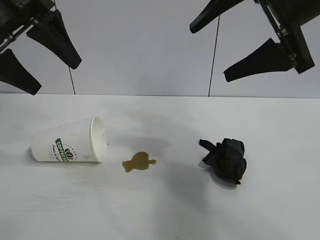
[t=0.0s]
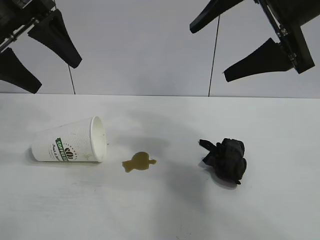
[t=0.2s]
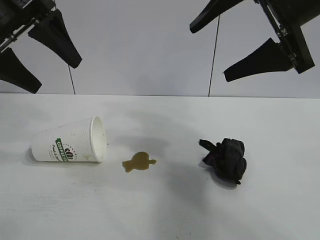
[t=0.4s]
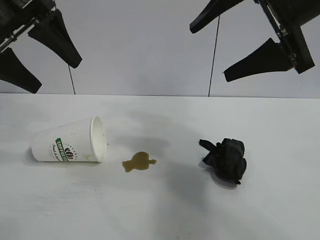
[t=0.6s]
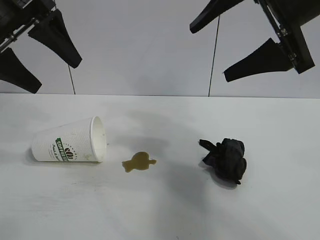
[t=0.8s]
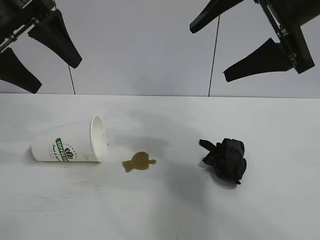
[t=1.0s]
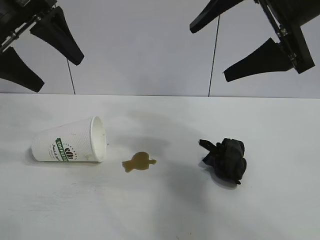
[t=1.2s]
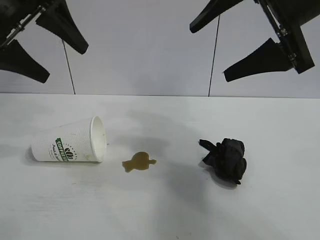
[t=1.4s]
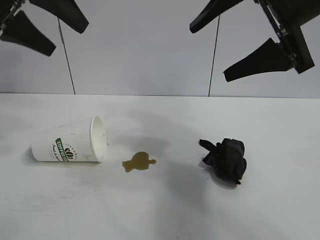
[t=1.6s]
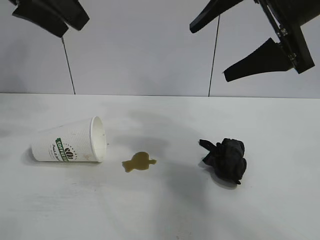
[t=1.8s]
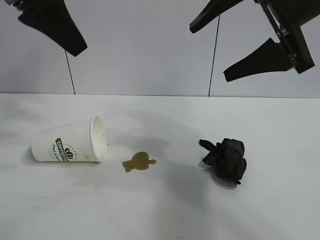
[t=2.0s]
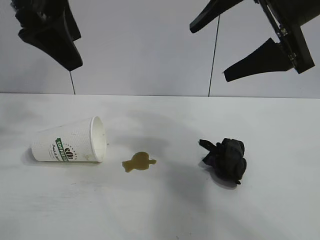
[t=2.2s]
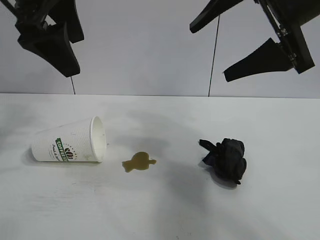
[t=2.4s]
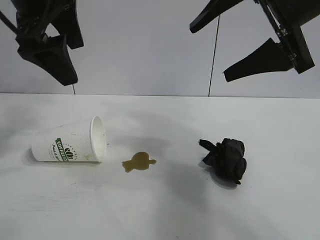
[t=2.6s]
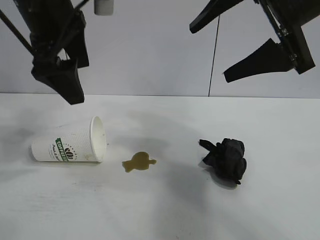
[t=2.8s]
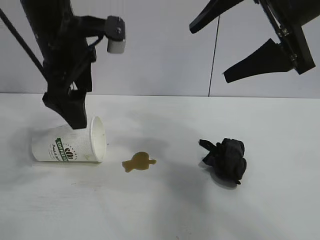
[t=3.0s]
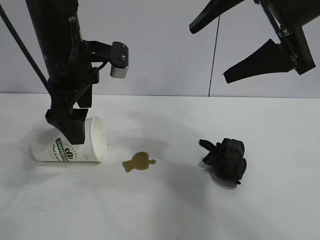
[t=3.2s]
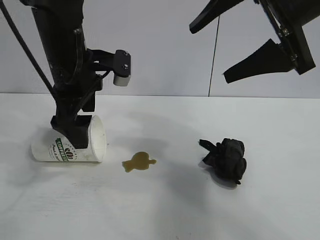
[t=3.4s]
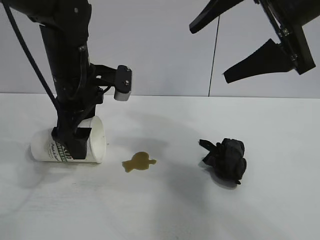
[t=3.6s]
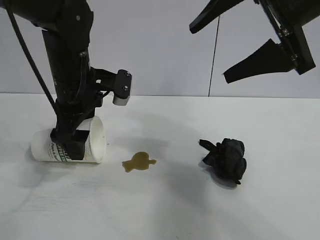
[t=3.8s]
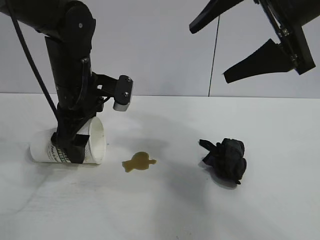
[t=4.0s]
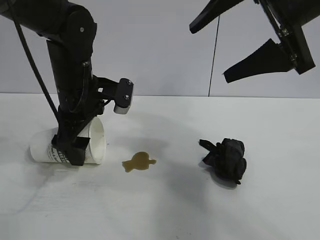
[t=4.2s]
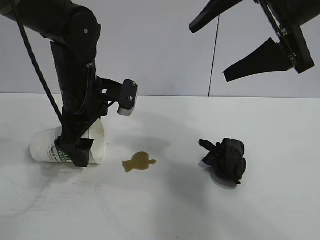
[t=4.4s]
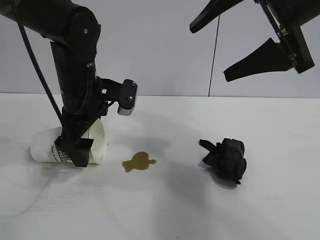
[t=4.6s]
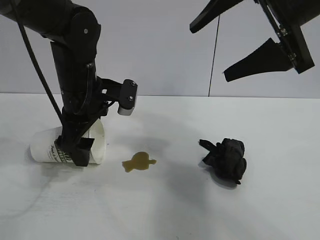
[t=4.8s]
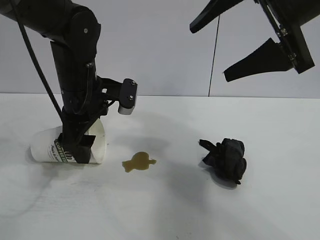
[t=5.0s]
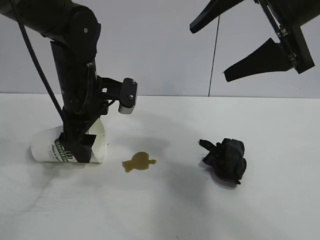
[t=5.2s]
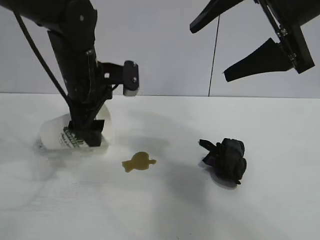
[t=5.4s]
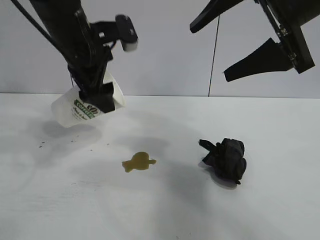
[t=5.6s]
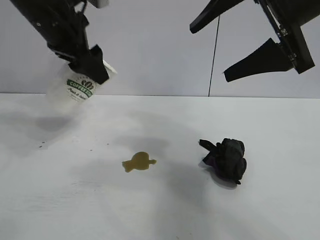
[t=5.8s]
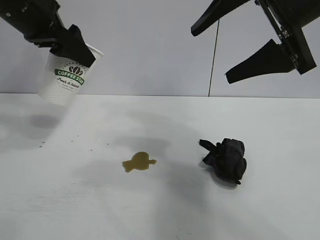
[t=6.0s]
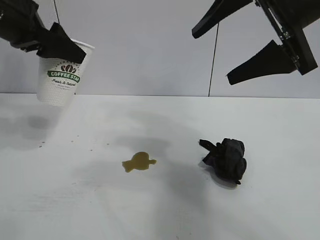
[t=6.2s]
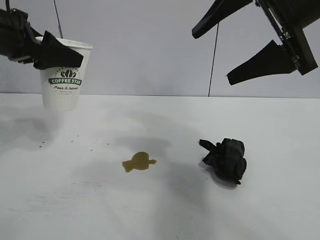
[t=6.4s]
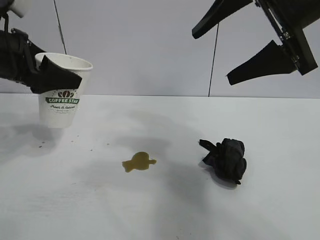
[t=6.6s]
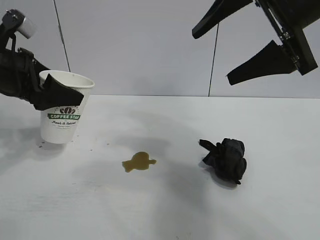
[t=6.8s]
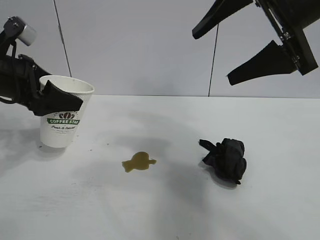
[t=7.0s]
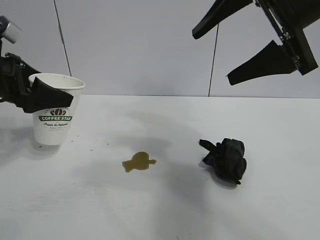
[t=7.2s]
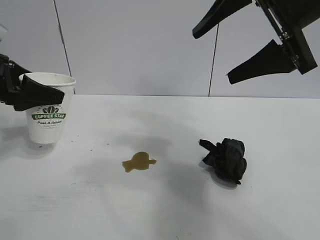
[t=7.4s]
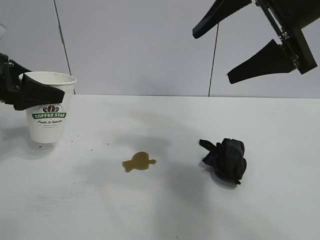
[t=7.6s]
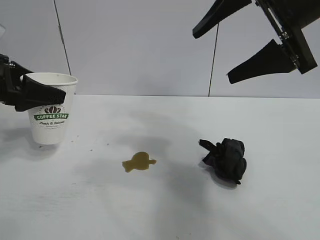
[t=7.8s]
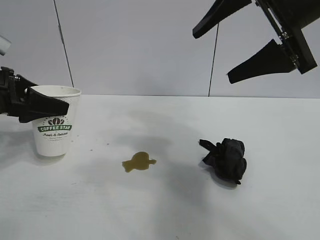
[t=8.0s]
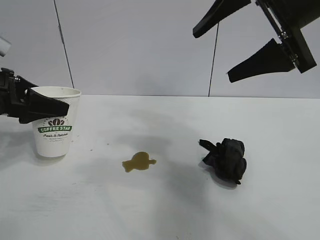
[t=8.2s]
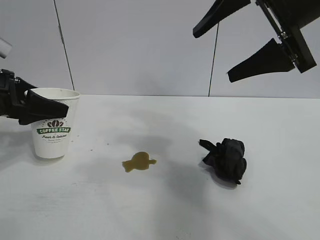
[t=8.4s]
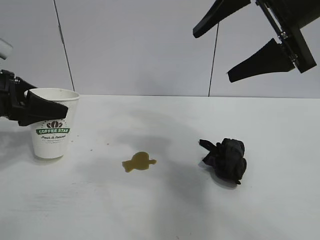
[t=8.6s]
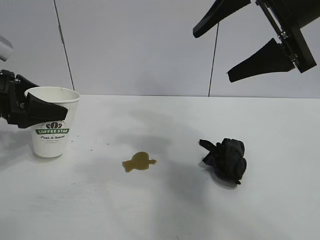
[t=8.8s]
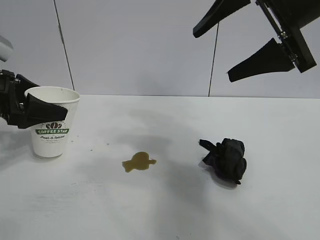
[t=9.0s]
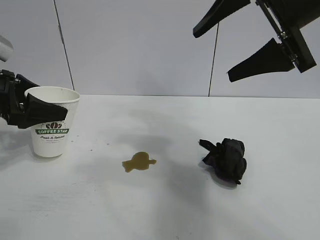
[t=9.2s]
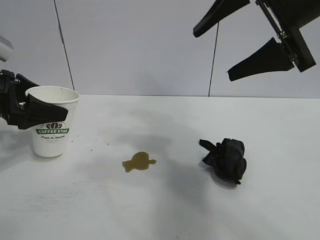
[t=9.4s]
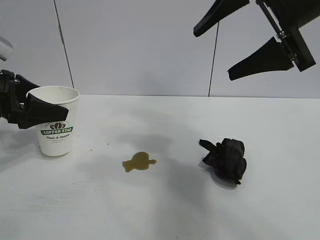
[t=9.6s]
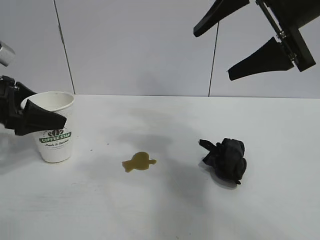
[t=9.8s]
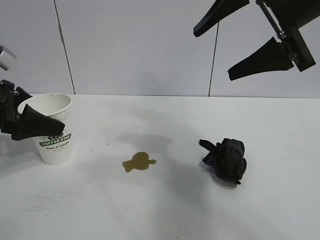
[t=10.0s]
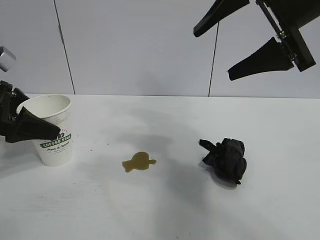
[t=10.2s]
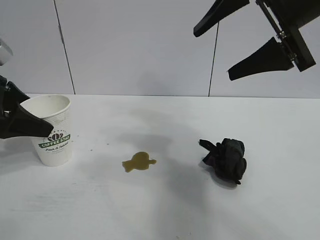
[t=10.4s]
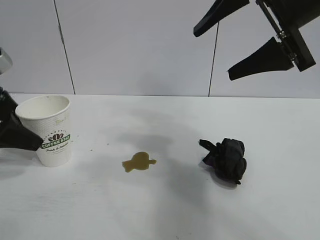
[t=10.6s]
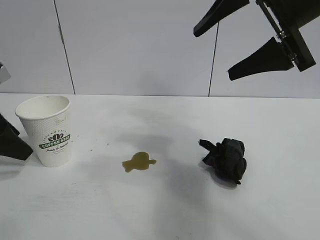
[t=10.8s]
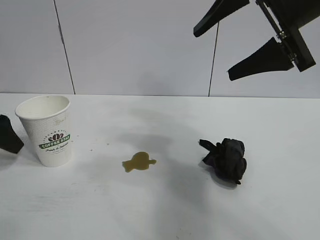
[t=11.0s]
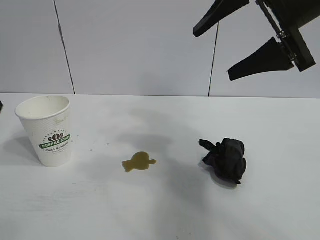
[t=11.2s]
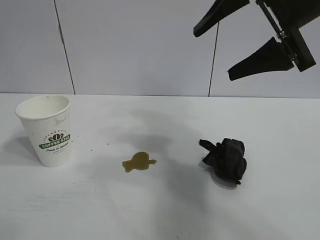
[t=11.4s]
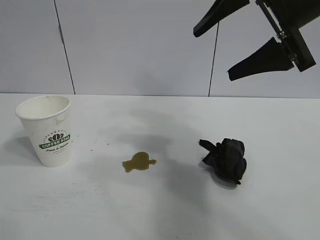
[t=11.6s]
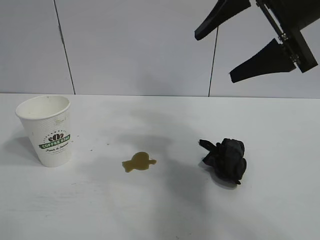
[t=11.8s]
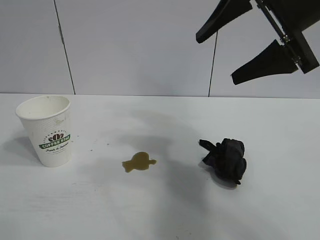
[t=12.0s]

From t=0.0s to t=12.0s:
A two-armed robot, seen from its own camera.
Task of the whole recording: the left gripper pick up the fallen cup and place it upright, the right gripper grasp the black rag and wipe the stain on the table, the right gripper put the black rag back in its original position.
Step, from t=1.2s to t=5.0s: Grasp the paper cup with left gripper.
Step, from t=5.2s to t=10.0s: Stand the paper cup upright with left gripper.

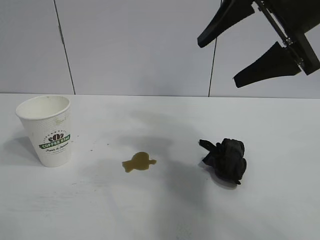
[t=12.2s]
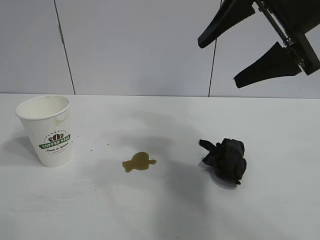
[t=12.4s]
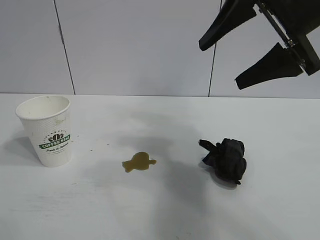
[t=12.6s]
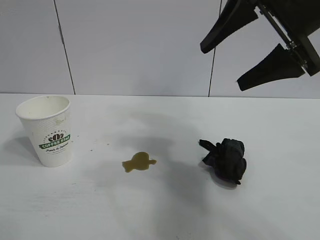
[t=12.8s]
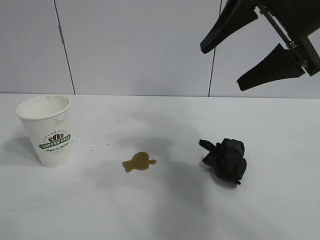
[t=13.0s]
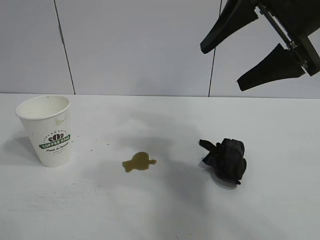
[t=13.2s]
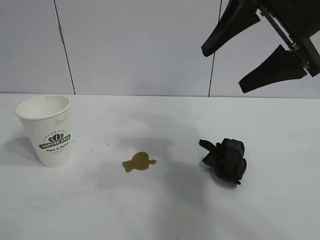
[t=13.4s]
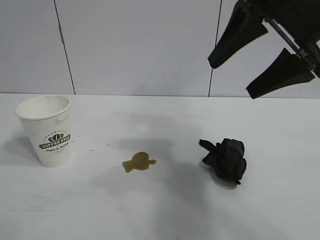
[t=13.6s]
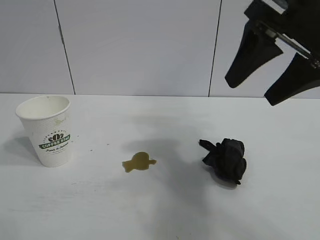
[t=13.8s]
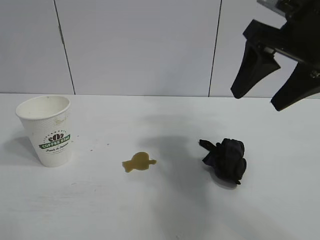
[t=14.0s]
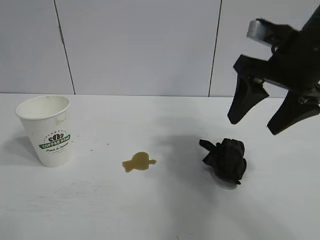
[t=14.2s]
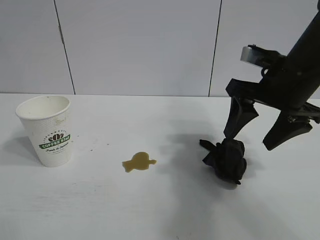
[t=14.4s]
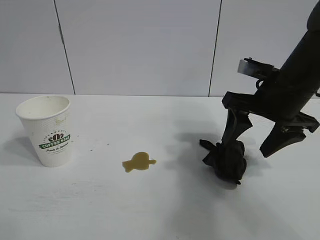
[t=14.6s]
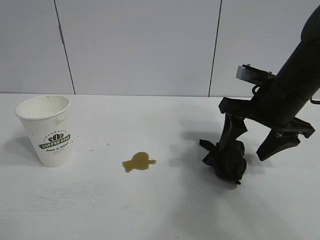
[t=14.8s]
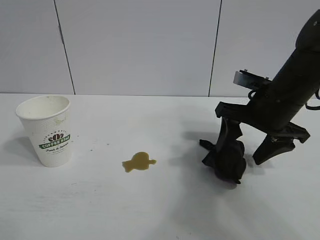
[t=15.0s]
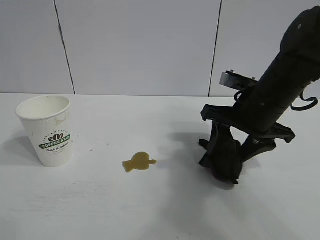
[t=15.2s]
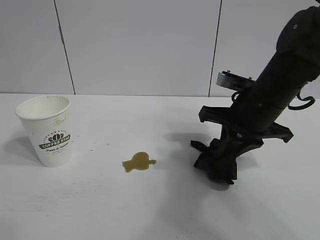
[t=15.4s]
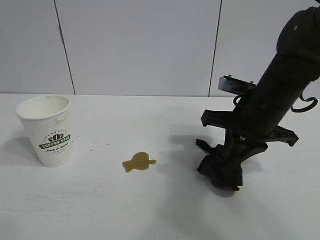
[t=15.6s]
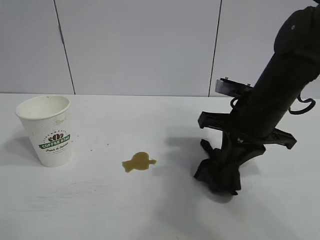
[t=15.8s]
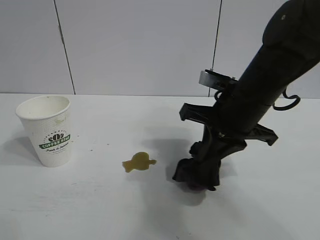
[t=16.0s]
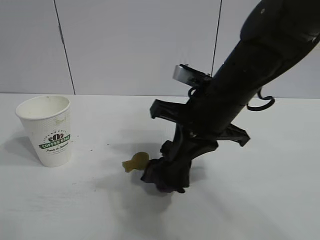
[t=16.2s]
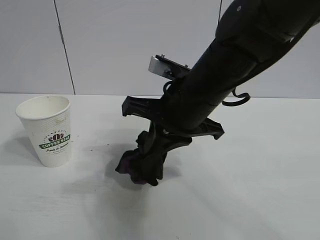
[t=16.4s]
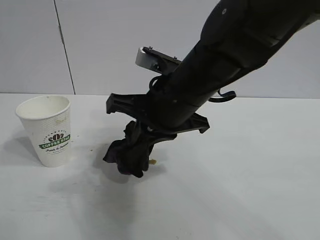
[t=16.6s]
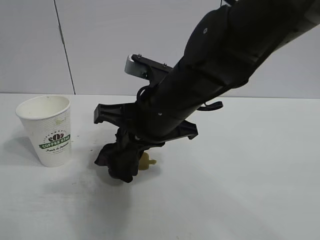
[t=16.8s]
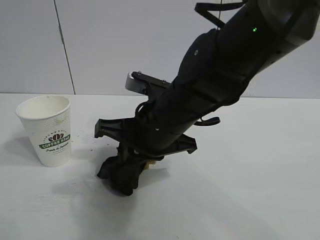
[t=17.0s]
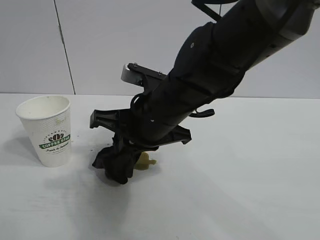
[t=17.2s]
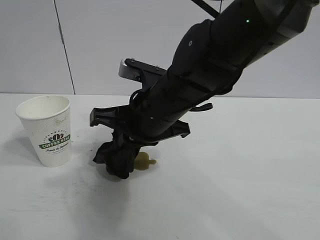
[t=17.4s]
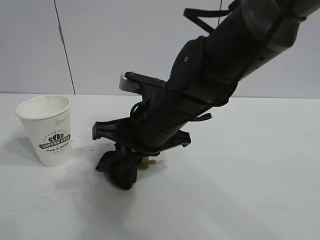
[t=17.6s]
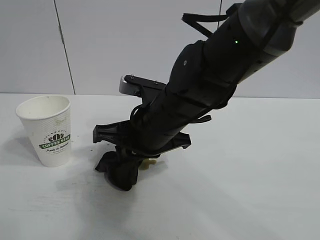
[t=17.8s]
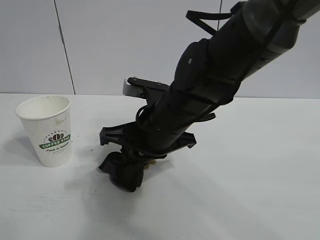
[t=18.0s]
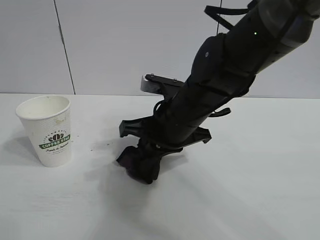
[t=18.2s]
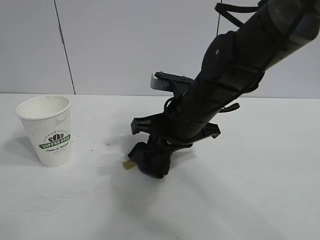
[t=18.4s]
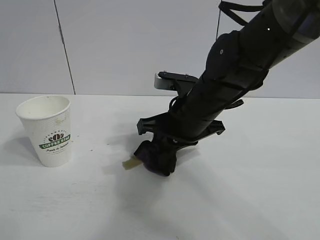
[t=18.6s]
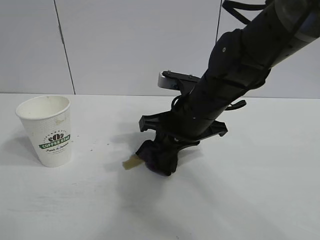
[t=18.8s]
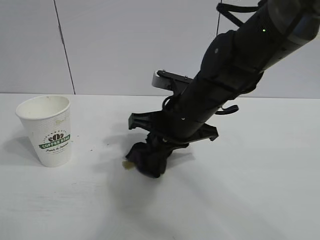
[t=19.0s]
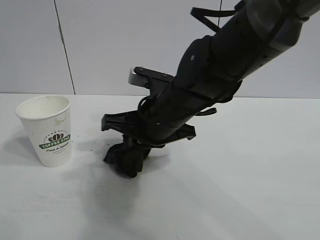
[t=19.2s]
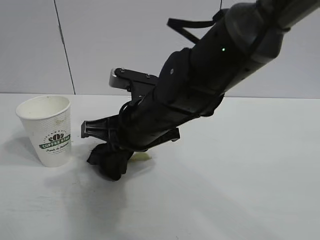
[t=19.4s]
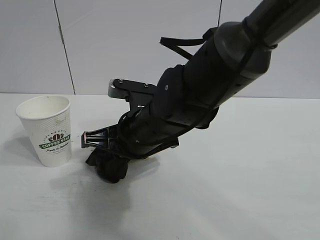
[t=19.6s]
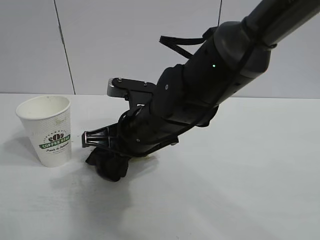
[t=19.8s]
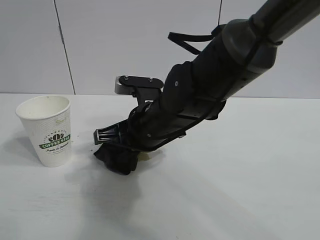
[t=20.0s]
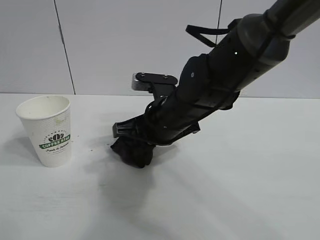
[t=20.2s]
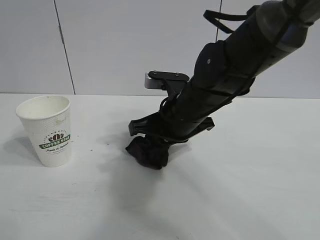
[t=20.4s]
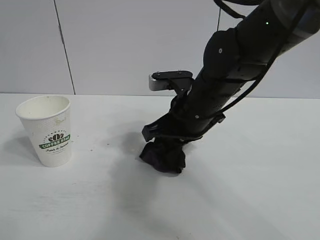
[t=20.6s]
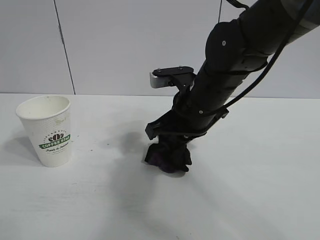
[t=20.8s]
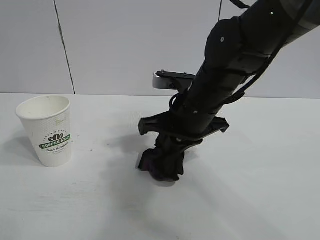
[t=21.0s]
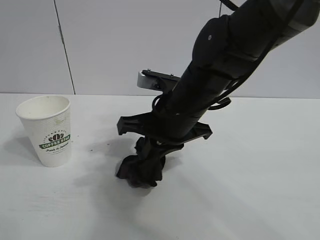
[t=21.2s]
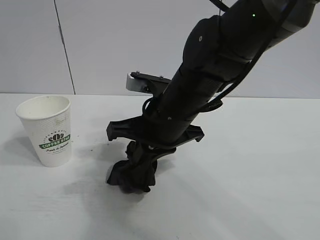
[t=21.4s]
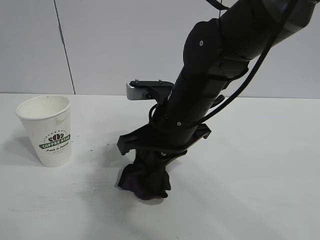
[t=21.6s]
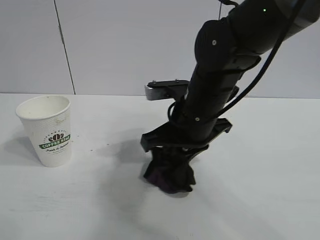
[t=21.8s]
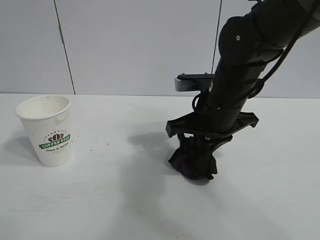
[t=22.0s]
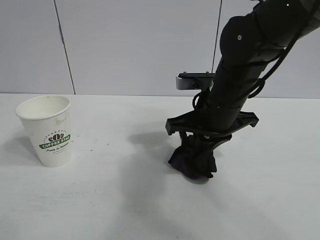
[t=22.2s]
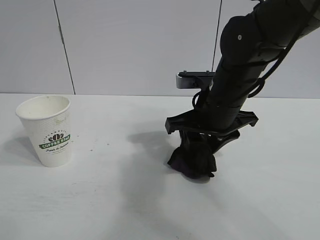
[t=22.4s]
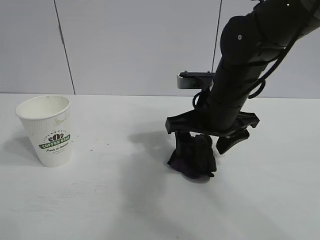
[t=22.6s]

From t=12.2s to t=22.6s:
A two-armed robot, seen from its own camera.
Task of the whole recording: the left gripper pick up the fallen cup and place it upright, the right gripper grasp the black rag and wipe the stain on the table, the right gripper put the black rag back in its original position.
Step, from t=12.2s to t=15.2s: Grasp the rag with right gripper.
Step, from t=15.6s to t=22.0s: Wipe the stains off the table with the rag with right gripper.
